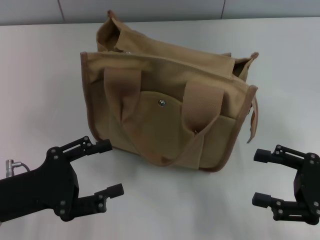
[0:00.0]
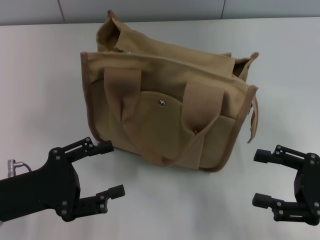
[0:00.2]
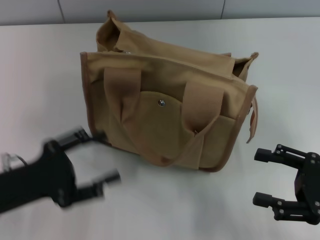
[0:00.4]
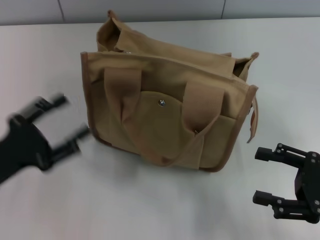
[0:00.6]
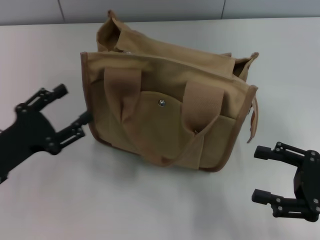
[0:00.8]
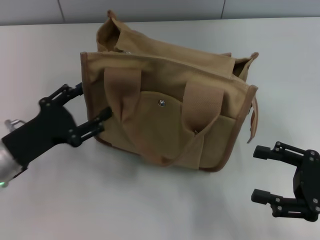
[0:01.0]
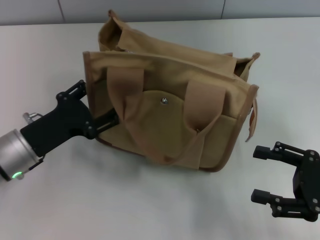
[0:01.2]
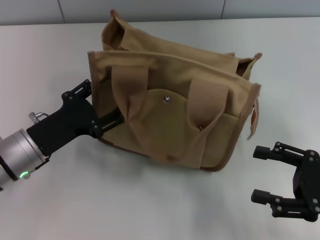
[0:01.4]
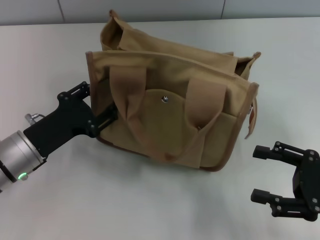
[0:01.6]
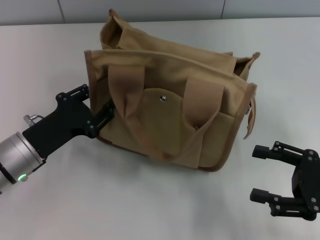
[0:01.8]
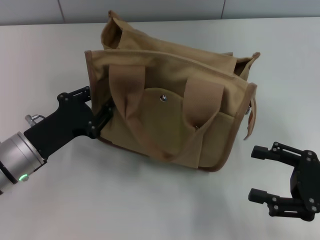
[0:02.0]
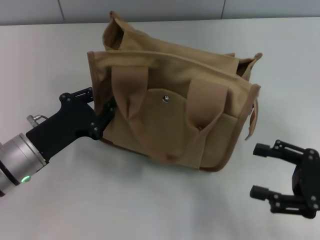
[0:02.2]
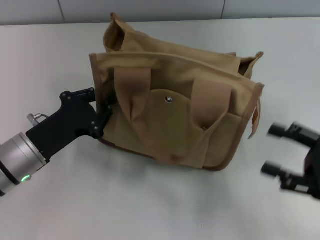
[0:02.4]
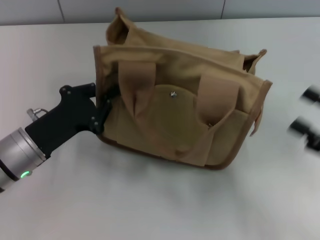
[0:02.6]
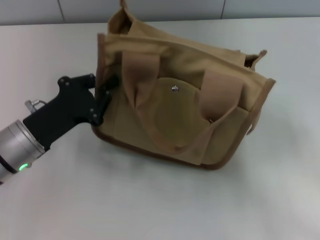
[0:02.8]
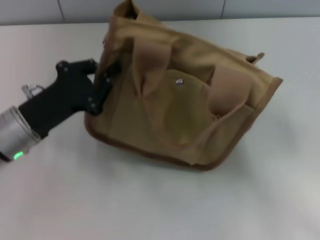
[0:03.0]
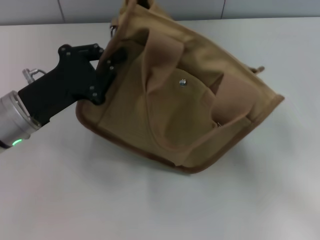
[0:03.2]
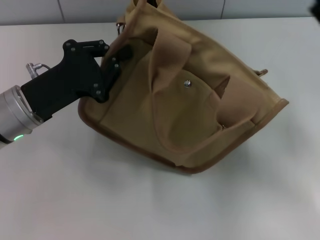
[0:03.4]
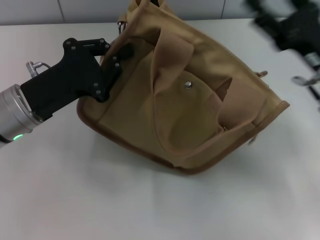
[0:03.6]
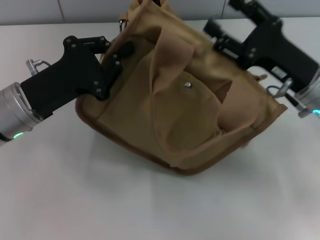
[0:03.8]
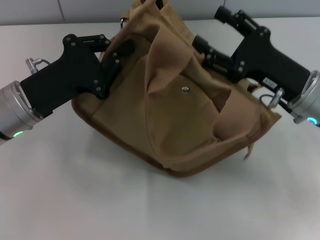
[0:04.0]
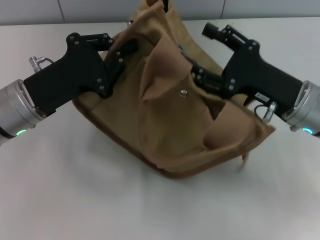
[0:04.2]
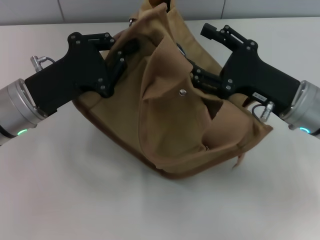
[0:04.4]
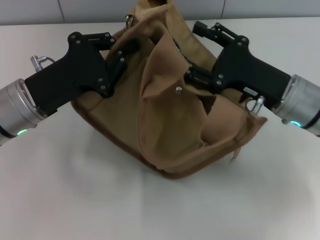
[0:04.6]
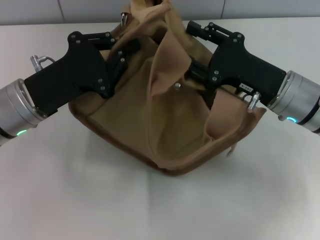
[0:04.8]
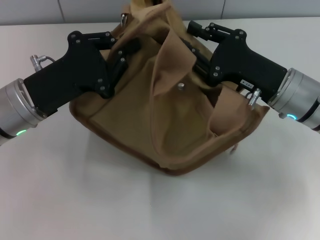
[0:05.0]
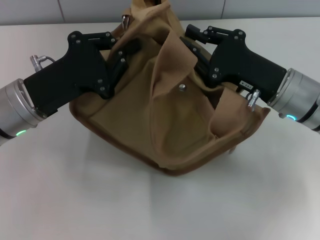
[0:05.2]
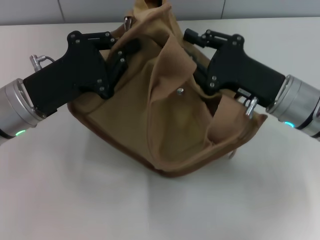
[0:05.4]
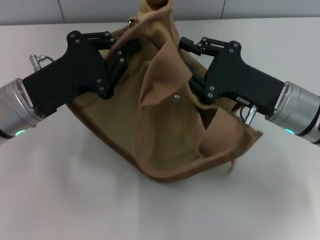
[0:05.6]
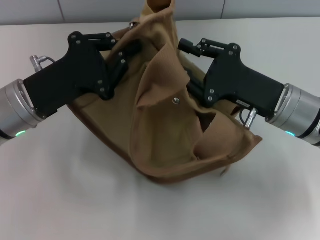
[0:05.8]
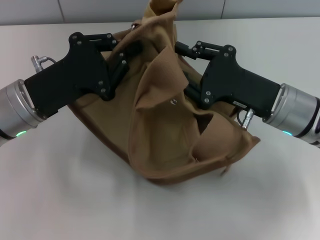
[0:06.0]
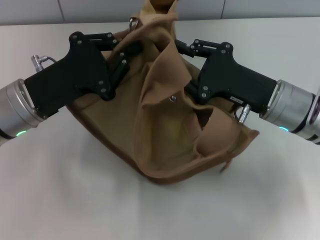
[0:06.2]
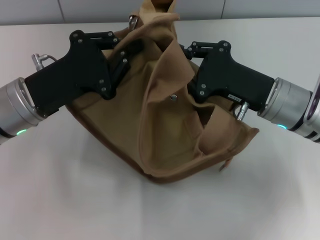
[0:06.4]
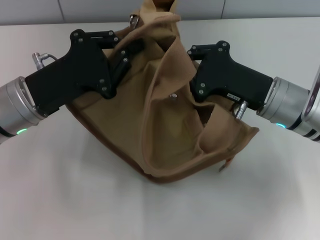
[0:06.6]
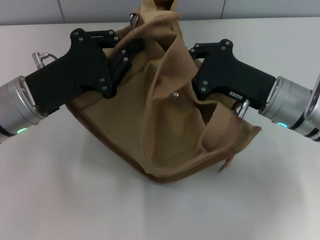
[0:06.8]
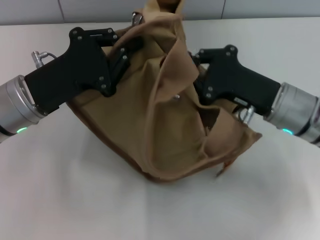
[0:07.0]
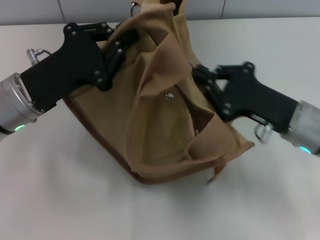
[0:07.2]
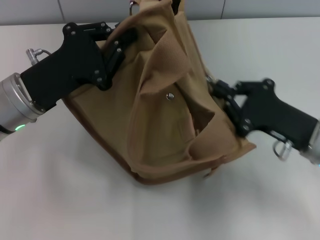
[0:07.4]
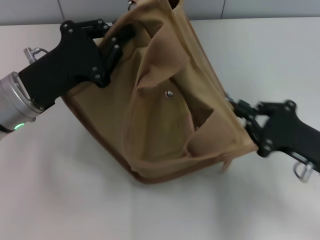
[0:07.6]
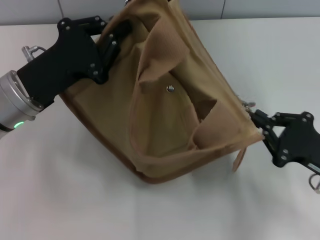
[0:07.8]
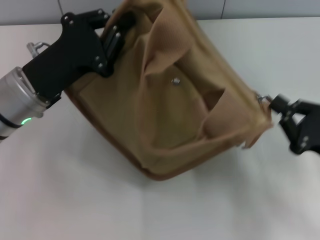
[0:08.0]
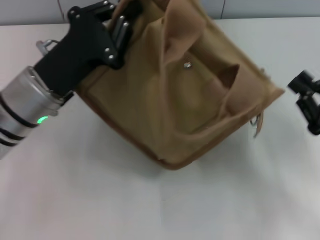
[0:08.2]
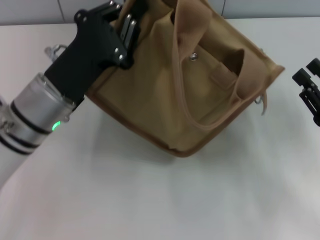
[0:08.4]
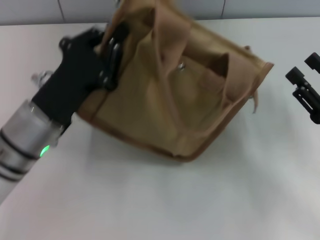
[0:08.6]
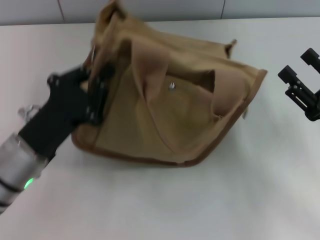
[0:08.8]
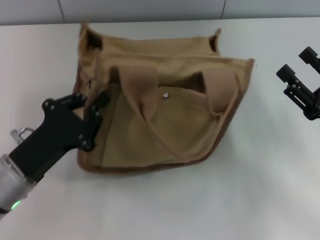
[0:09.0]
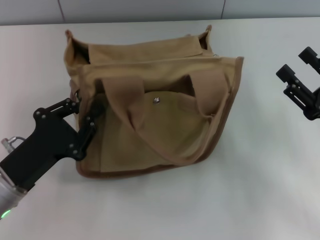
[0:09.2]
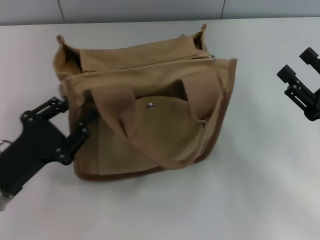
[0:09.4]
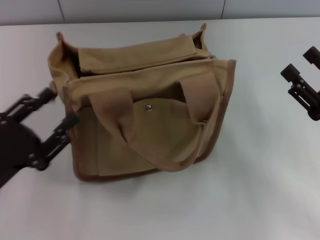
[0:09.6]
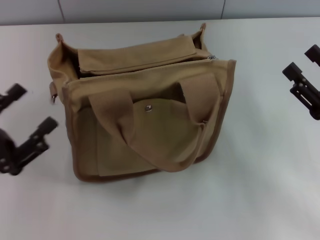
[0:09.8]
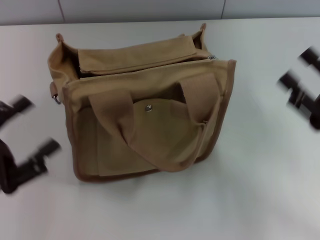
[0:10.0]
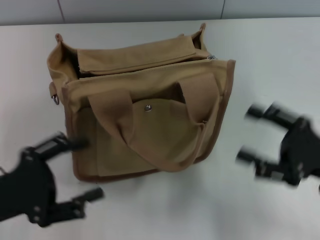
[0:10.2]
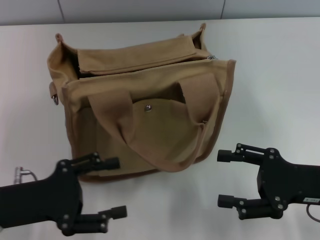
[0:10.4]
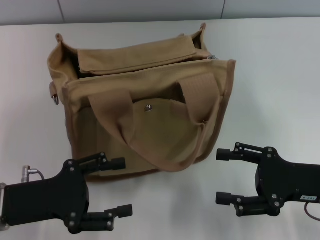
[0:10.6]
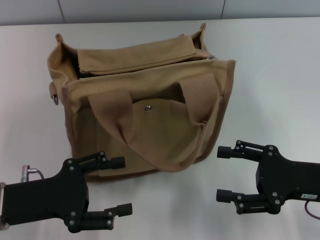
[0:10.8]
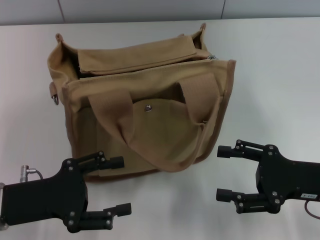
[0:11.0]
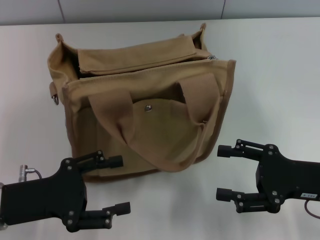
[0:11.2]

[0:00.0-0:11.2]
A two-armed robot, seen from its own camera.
Step, 0:00.0 to 0:08.0: Pull open the zipper with your right hand.
Step, 0:08.2 to 0:09.4: Grab the bag with your left hand.
0:00.0 to 0:01.6: The left gripper is displaced forward by some 5 cm.
0:01.6 to 0:03.2: The left gripper goes approximately 5 cm upward, and closes its fingers. The right gripper goes some 5 cm forward.
0:03.2 to 0:04.8: The right gripper heads to the left and forward, covering roughly 15 cm.
0:04.8 to 0:06.4: The right gripper closes.
0:06.4 to 0:08.0: The right gripper shifts some 15 cm to the right and backward, and closes.
0:08.0 to 0:09.6: The right gripper opens its fingers; the left gripper heads backward, to the left and downward, covering some 15 cm.
0:09.6 to 0:11.2: The left gripper opens its fingers.

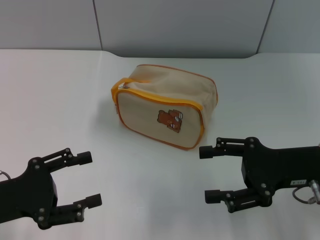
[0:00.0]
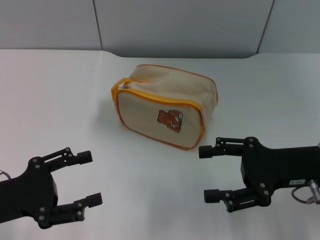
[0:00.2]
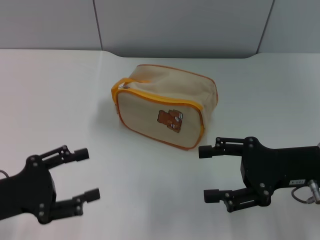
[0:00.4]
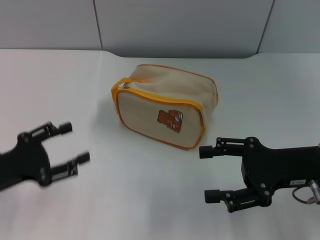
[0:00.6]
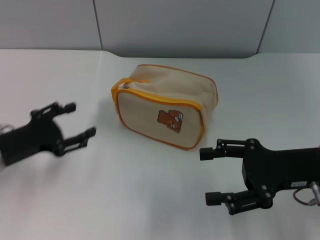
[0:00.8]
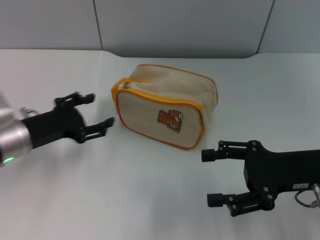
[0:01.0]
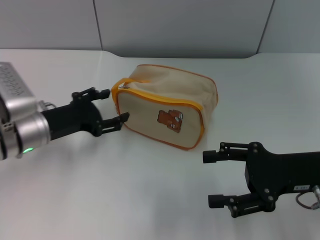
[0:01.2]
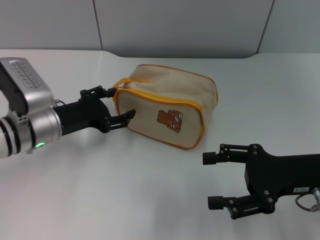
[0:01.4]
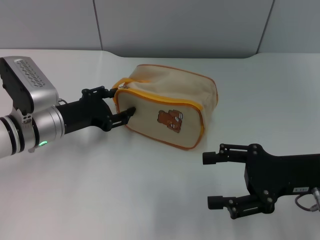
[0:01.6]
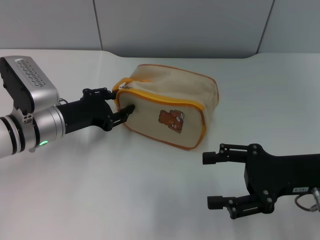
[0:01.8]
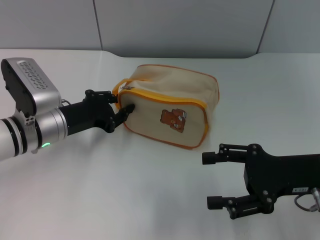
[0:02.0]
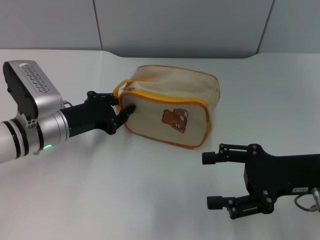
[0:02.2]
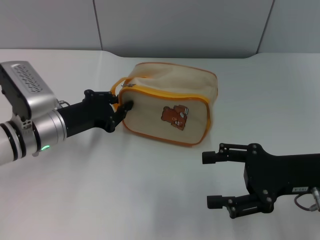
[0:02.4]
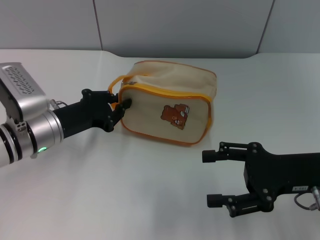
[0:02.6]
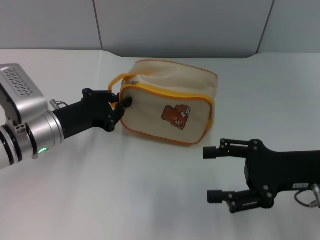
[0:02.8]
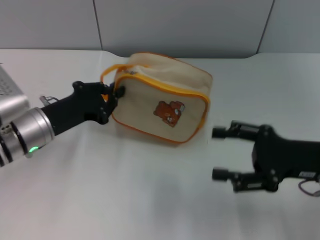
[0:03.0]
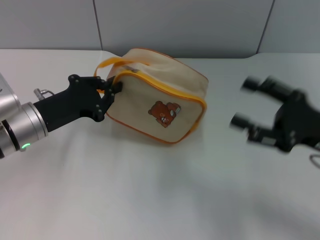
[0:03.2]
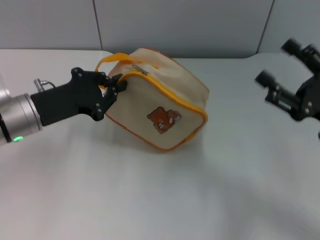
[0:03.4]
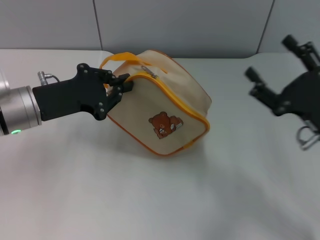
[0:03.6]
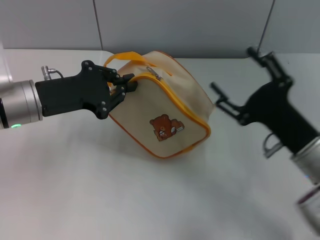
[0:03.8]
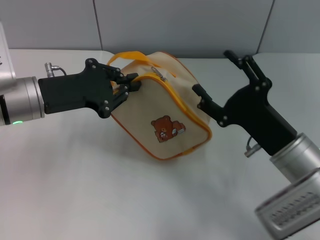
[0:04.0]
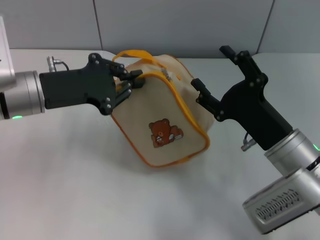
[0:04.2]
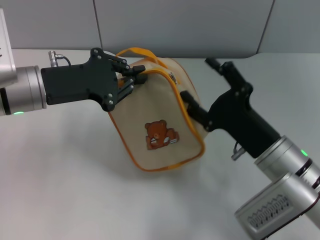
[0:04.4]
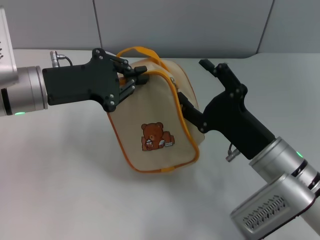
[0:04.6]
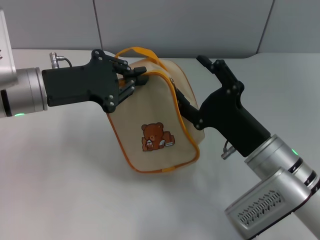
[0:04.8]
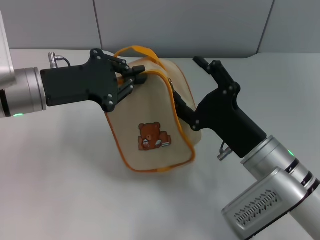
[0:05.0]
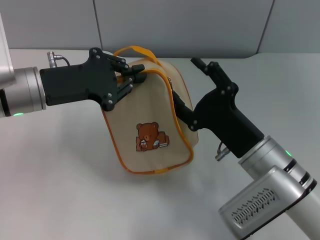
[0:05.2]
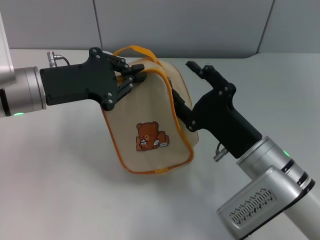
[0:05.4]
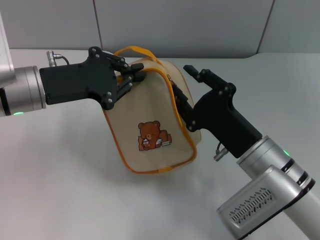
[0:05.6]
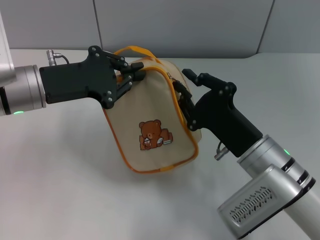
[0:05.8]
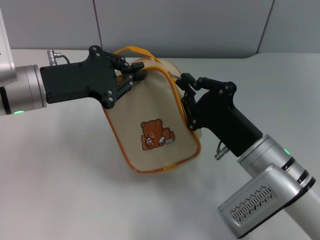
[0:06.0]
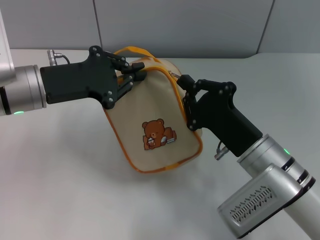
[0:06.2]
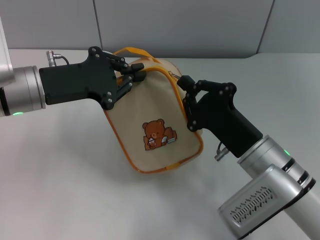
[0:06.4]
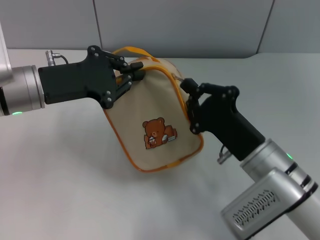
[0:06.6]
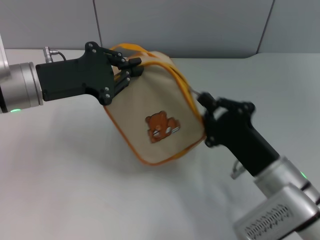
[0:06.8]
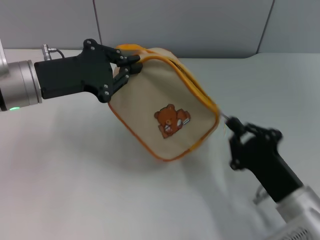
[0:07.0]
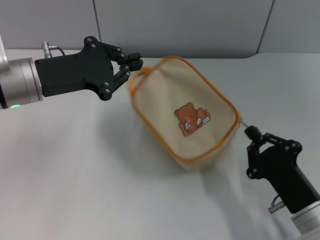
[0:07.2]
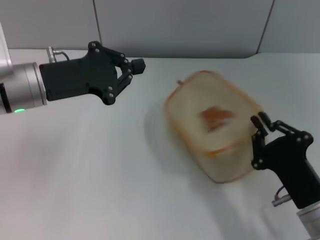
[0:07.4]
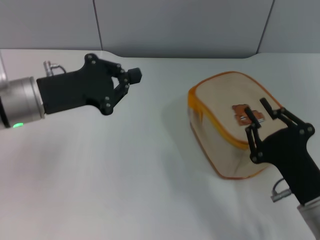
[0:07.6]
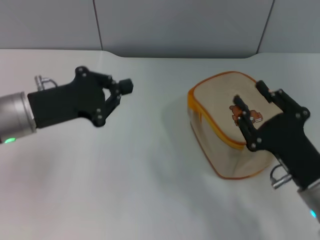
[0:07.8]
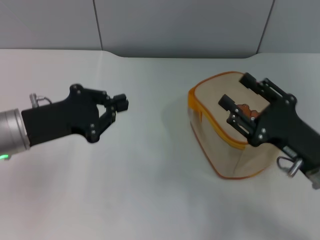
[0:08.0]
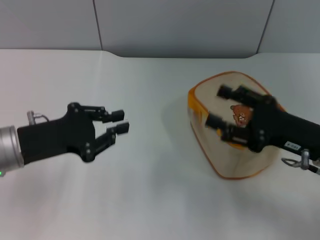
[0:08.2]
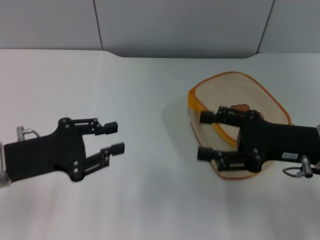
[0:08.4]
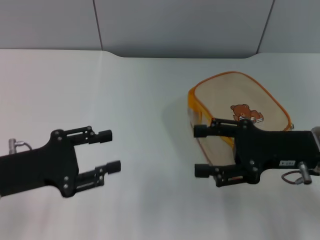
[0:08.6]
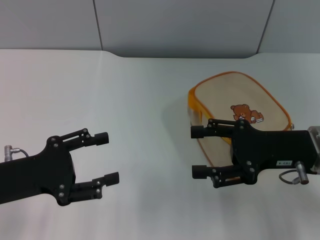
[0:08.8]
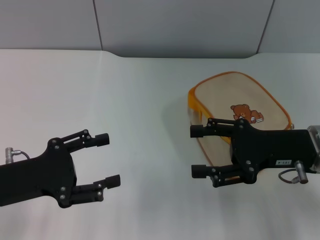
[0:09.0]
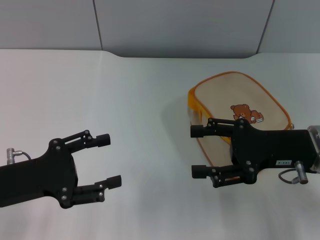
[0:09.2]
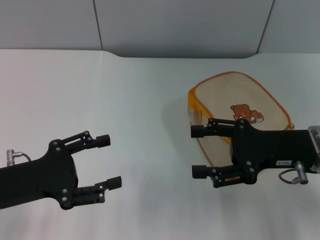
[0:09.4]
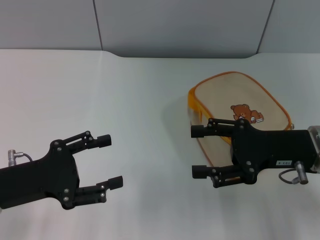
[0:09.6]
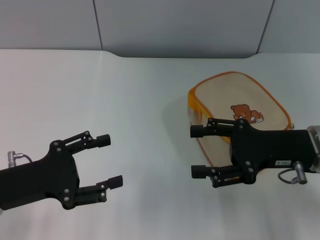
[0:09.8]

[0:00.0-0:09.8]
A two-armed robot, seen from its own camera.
Step, 0:00.0 to 0:03.0: Pick up the bag with left gripper.
Step, 0:03.2 to 0:07.2: Unzip the zipper of bag with right gripper.
0:00.0 to 0:01.4: The left gripper shifts some 15 cm forward and to the right.
0:01.4 to 0:02.8: The left gripper closes.
0:02.8 to 0:04.2: The left gripper heads upward, covering roughly 10 cm; the right gripper moves to the left, roughly 5 cm.
0:05.6 to 0:07.0: The right gripper heads backward, covering about 5 cm, and closes its fingers.
0:07.0 to 0:08.4: The right gripper goes some 15 cm upward, forward and to the right, and opens up. Meanwhile the left gripper goes roughly 10 cm backward and downward.
0:08.4 to 0:09.8: The left gripper opens its fingers.

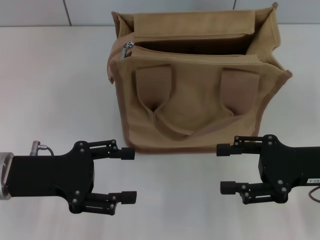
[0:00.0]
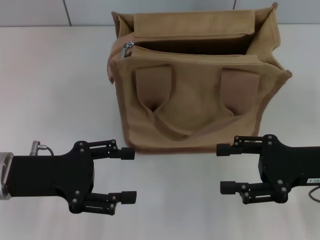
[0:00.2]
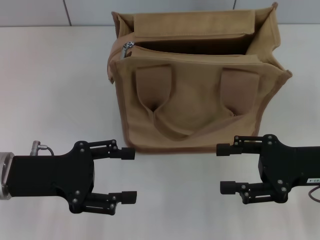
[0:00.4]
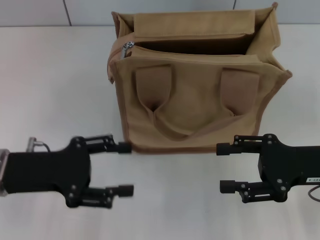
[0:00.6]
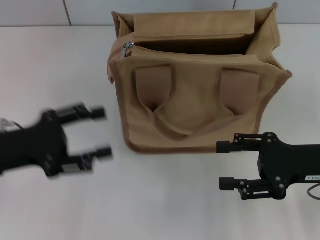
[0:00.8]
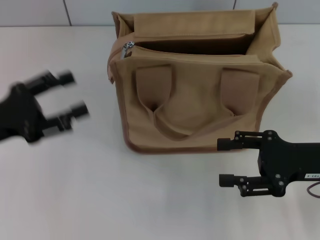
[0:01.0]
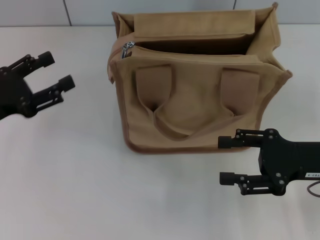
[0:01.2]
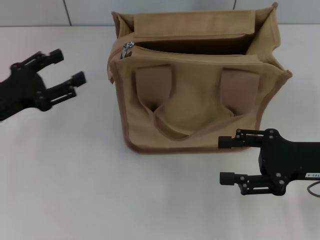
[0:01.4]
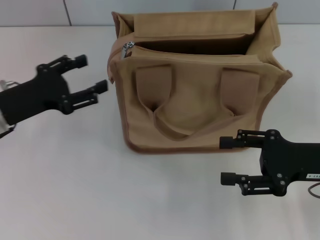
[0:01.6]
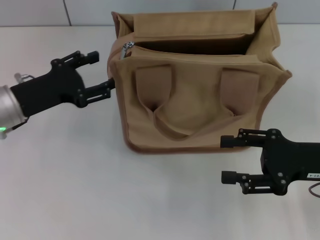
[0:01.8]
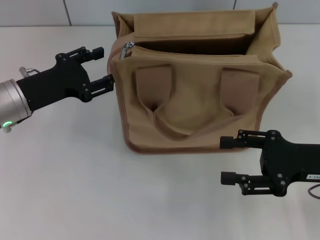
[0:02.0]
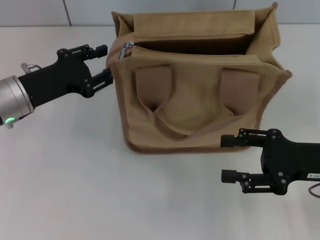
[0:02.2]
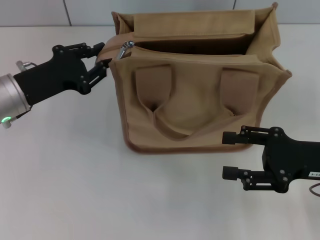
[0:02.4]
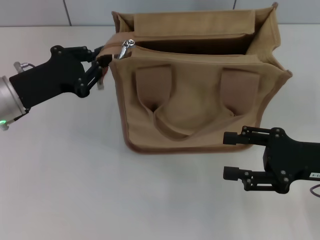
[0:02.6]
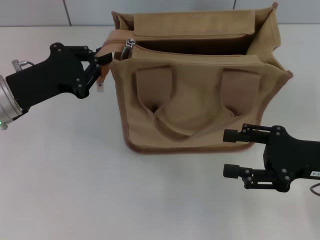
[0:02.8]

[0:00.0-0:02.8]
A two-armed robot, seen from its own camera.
0:00.0 to 0:01.4: The left gripper changes place by about 5 cm.
0:01.4 to 0:02.8: The left gripper changes place by about 5 cm, and closes its fingers.
